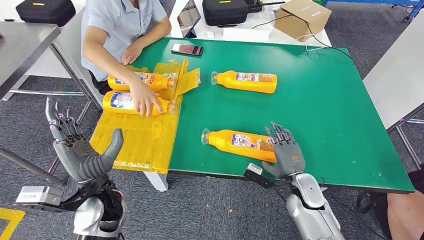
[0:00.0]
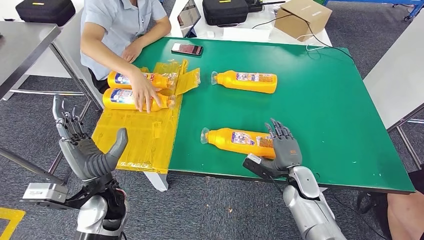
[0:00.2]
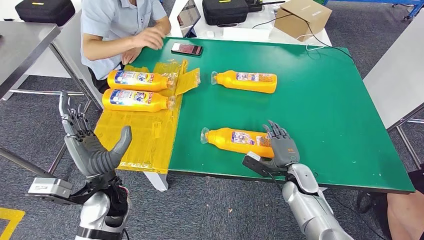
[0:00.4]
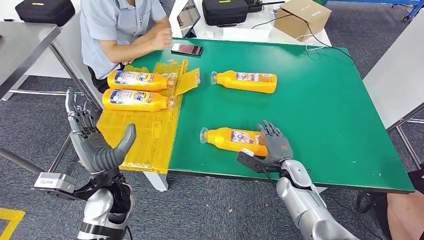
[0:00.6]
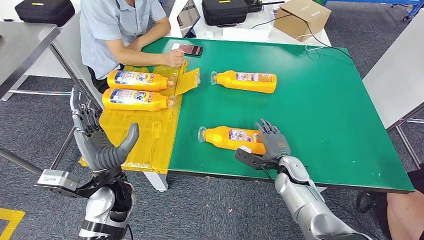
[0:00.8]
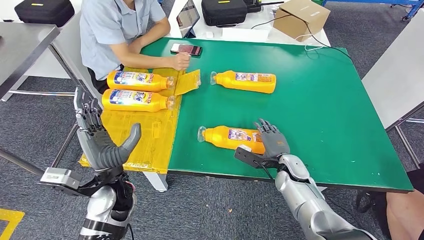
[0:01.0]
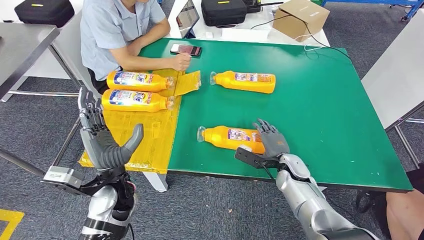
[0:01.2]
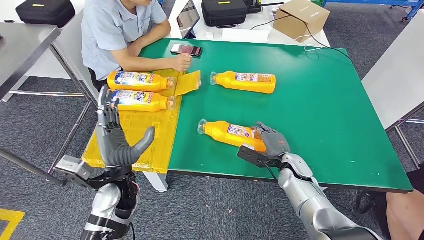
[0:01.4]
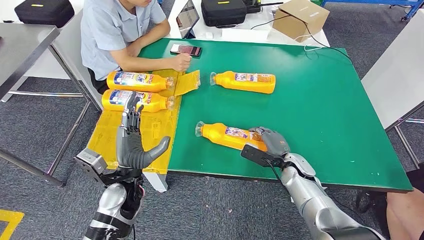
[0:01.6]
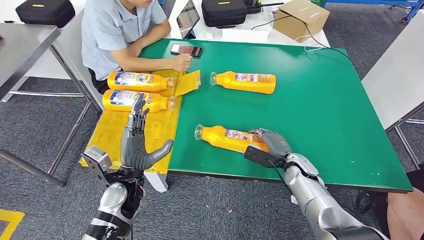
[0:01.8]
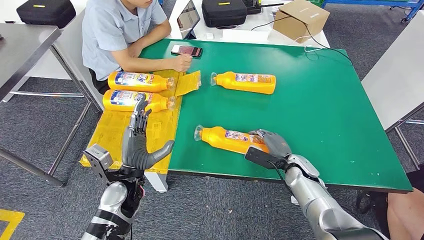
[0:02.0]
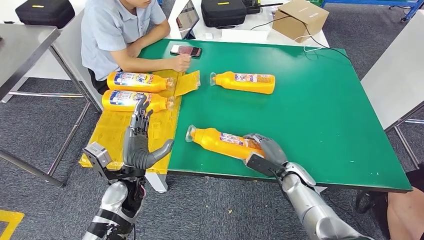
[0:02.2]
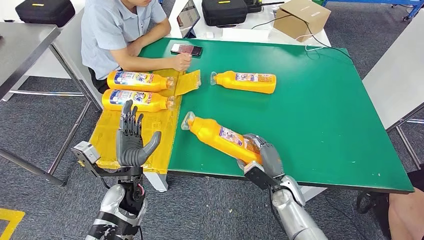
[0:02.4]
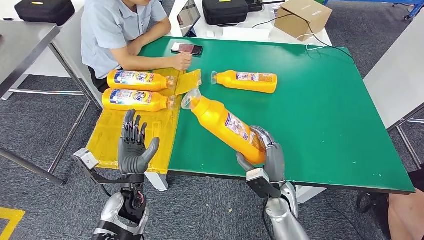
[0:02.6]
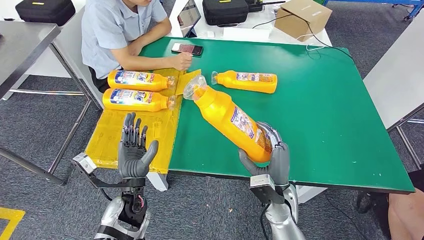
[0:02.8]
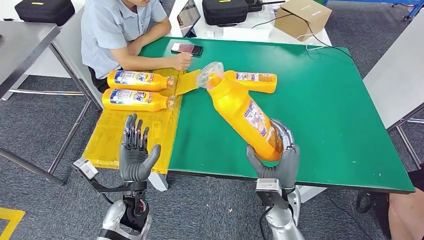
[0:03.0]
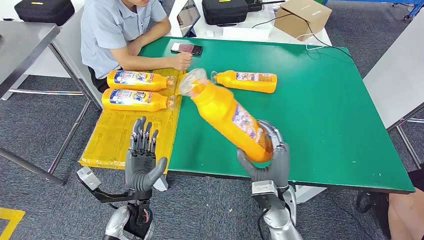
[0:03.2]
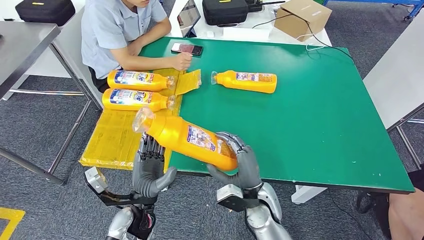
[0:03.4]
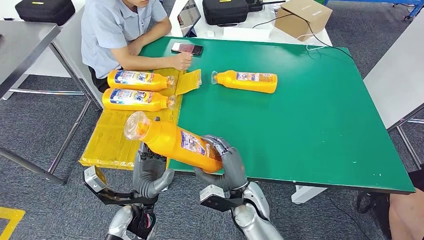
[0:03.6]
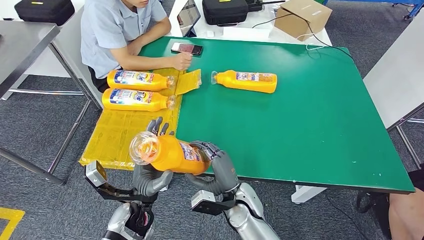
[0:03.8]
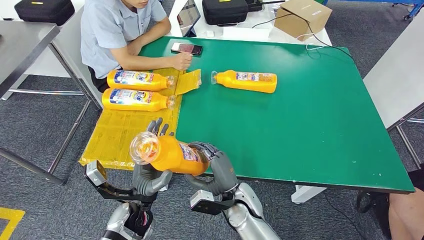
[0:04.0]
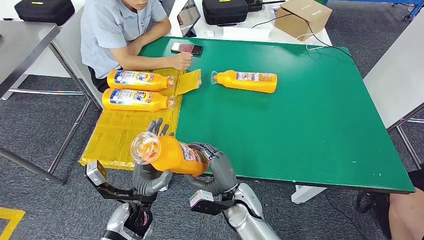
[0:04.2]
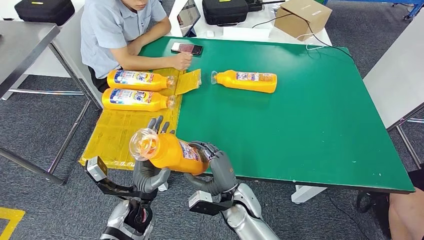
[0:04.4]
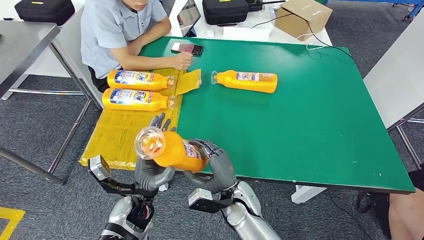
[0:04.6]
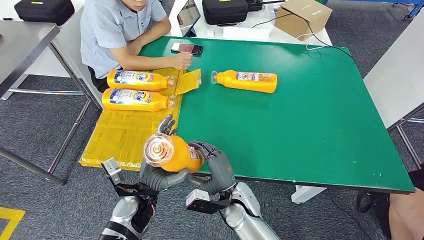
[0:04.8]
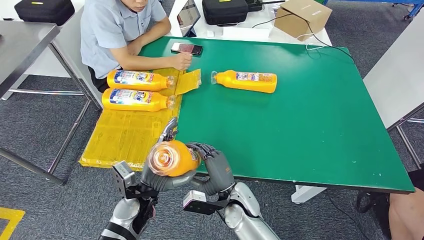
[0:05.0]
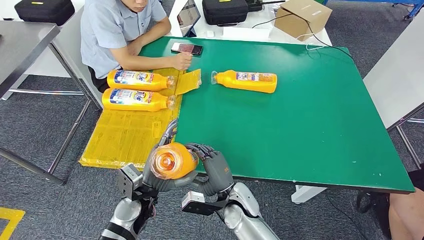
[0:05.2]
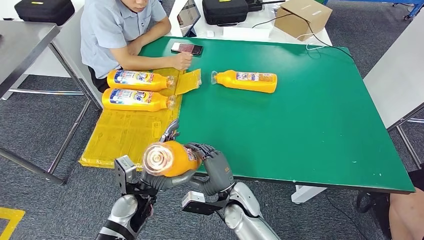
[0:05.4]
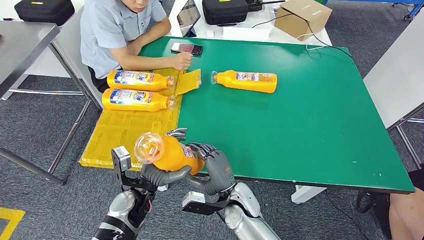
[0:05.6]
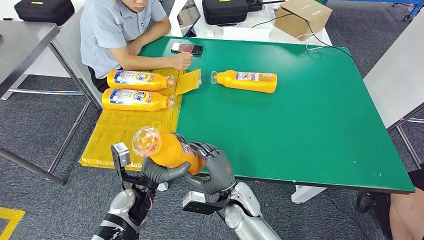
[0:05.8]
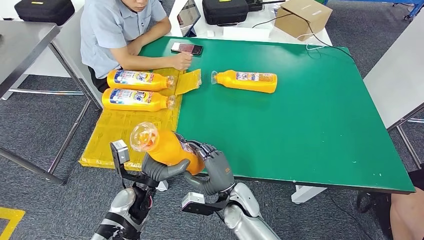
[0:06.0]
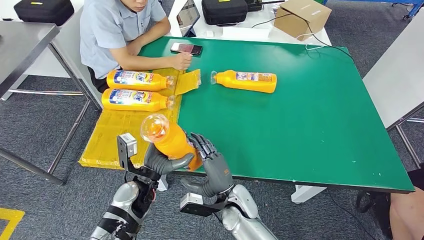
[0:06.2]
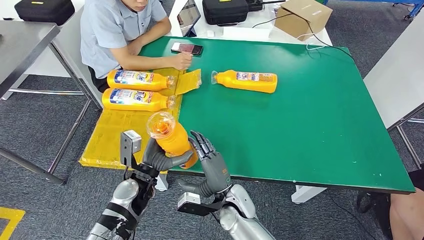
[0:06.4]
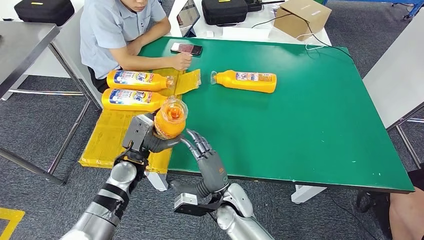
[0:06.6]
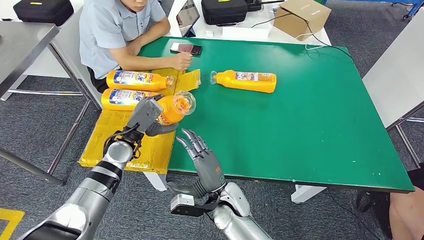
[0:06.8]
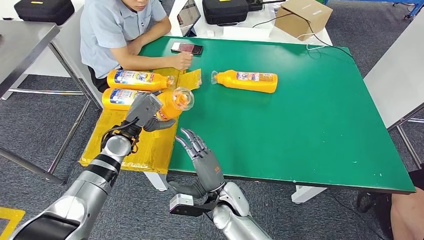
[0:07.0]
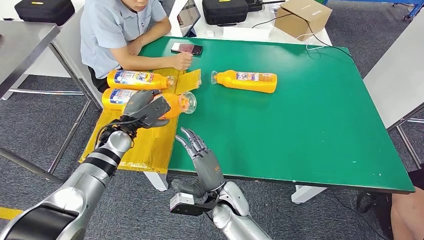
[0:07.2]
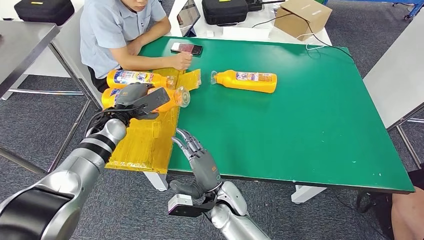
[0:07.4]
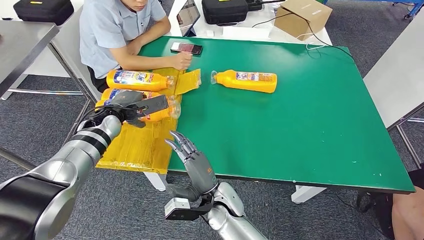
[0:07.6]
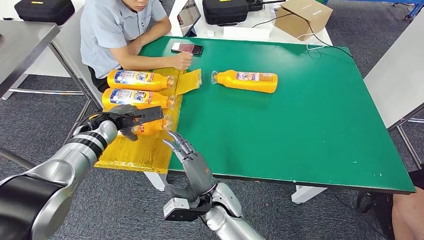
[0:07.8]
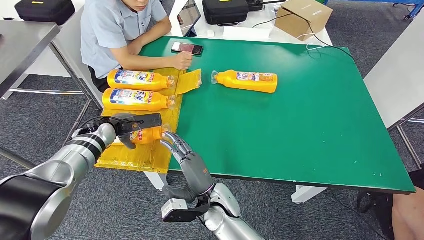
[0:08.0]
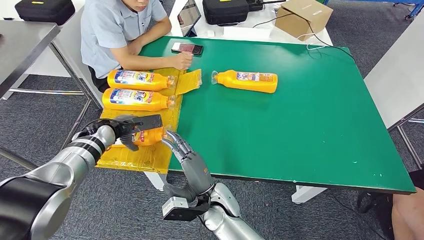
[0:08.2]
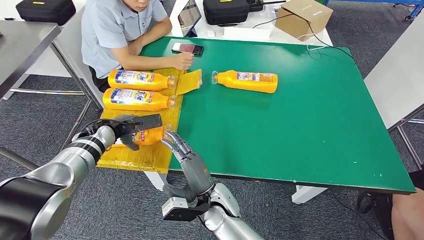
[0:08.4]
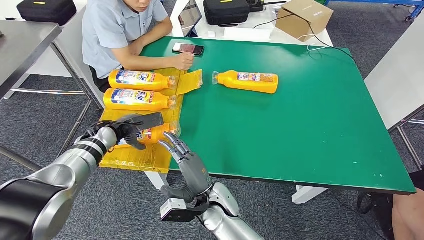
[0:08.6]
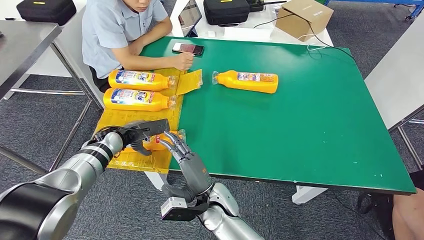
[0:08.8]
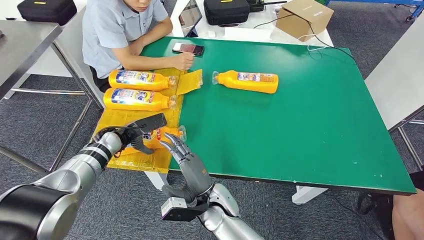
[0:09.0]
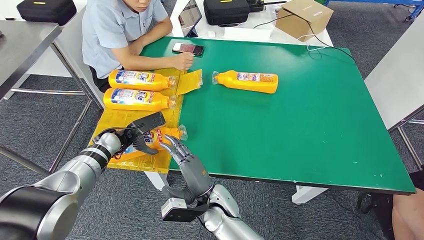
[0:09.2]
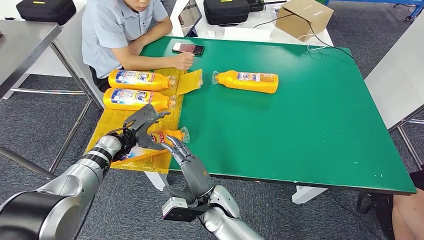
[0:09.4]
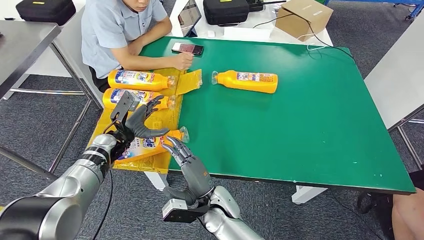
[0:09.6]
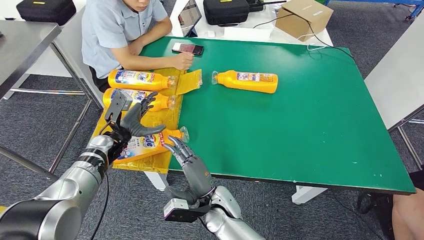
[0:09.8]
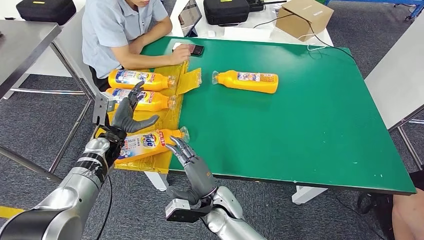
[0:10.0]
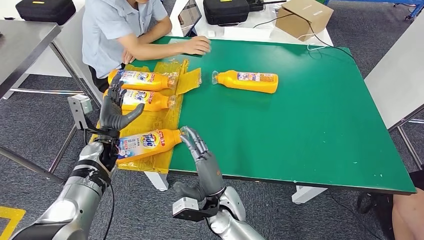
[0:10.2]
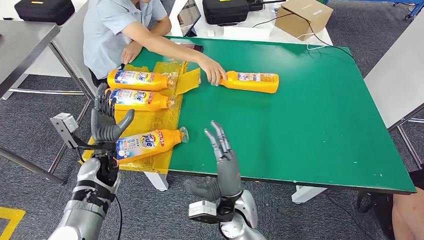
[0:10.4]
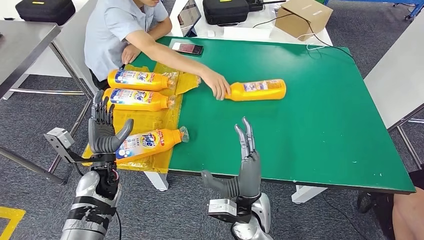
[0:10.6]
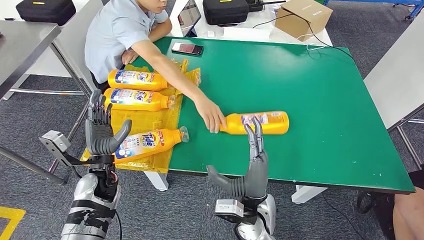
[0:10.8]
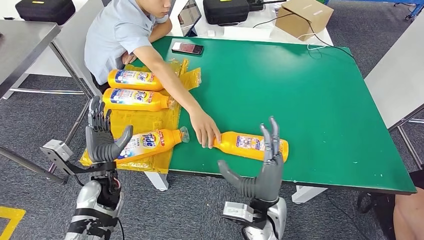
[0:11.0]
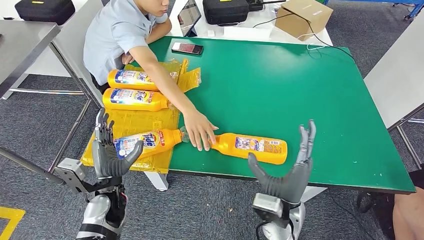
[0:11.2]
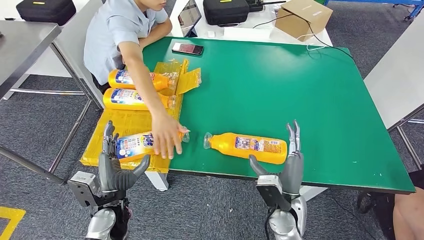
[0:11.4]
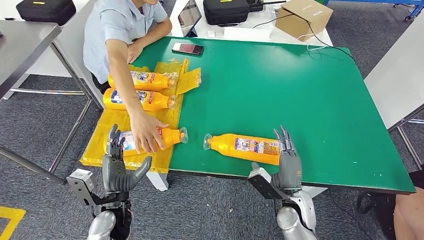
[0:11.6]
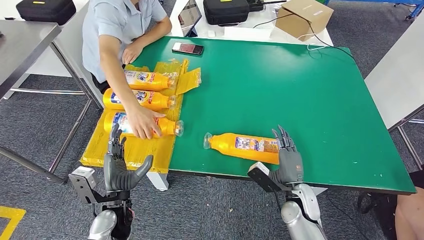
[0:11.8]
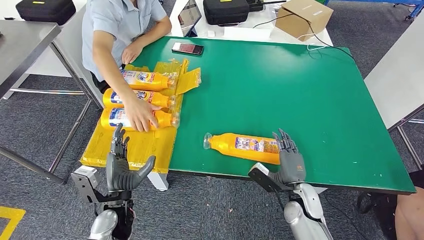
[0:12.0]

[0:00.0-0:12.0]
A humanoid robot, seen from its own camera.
Step, 0:00.0 to 0:03.0: Pick up the fast-moving consumer goods bottle from the table.
Step, 0:03.2 to 0:10.0: Flip the fast-moving consumer goods bottle to the front side.
0:03.0 to 0:04.4: The right hand moves to the left, roughly 10 cm.
0:06.0 to 0:07.6: The left hand shifts approximately 25 cm forward, to the left and upward.
0:07.6 to 0:09.0: The left hand heads downward, covering approximately 5 cm.

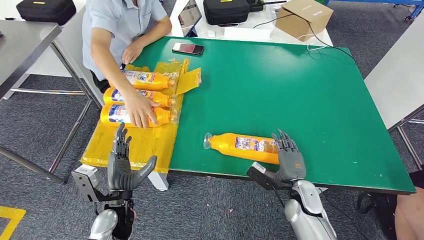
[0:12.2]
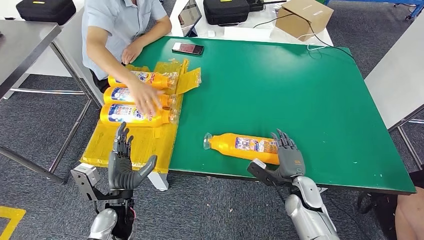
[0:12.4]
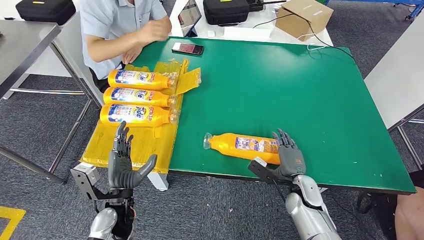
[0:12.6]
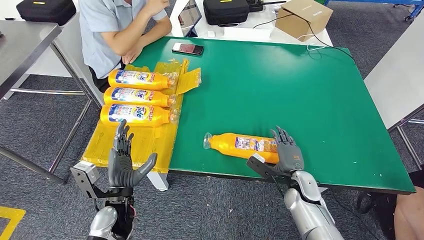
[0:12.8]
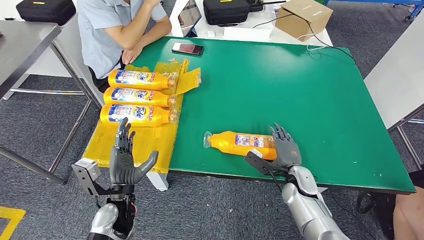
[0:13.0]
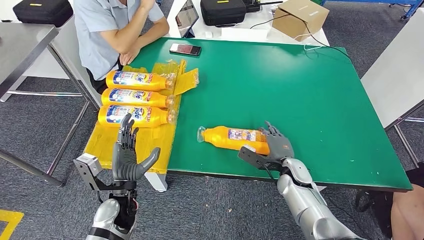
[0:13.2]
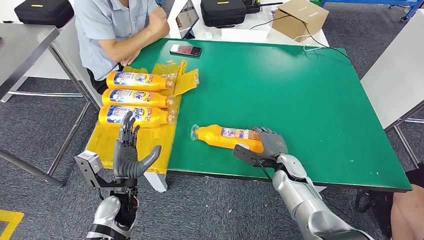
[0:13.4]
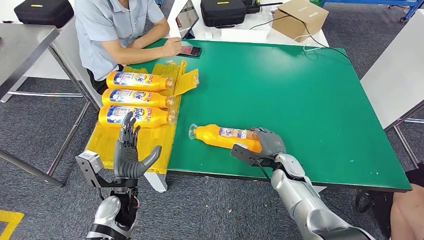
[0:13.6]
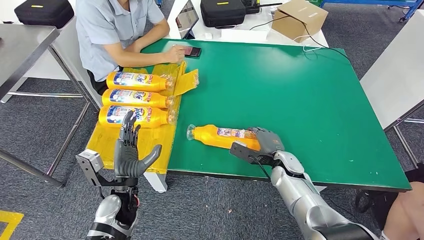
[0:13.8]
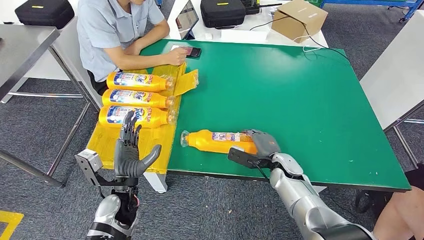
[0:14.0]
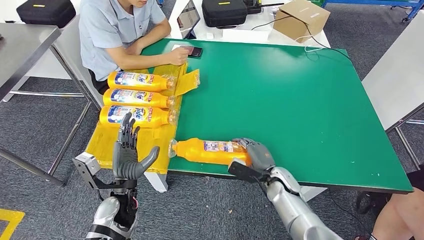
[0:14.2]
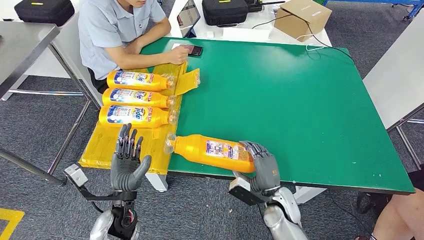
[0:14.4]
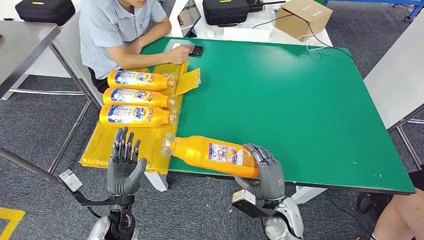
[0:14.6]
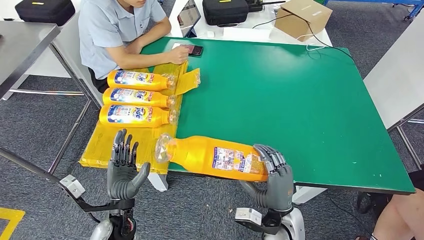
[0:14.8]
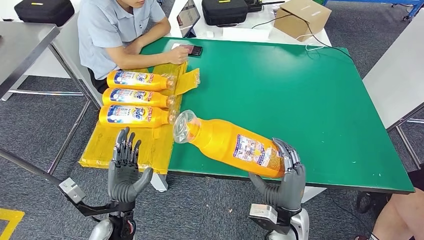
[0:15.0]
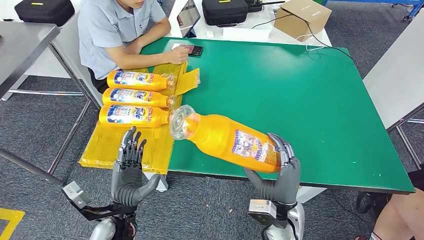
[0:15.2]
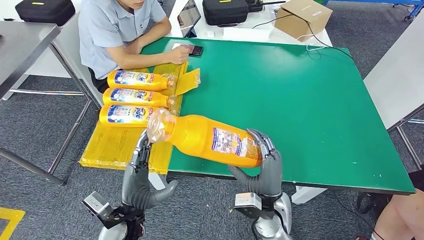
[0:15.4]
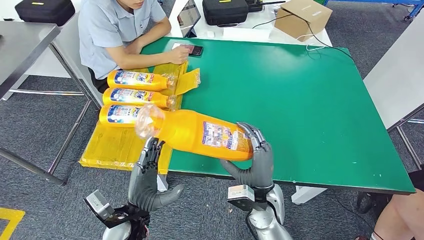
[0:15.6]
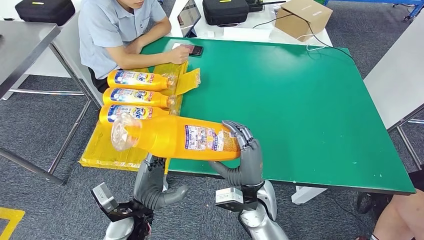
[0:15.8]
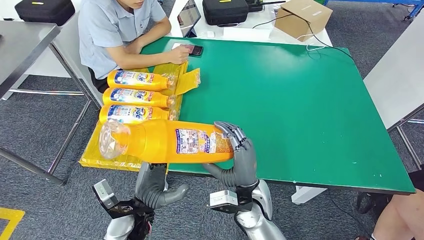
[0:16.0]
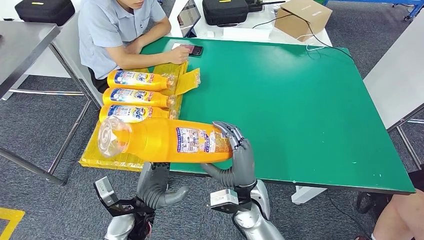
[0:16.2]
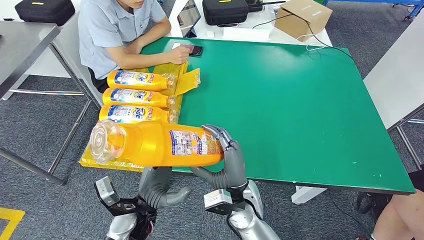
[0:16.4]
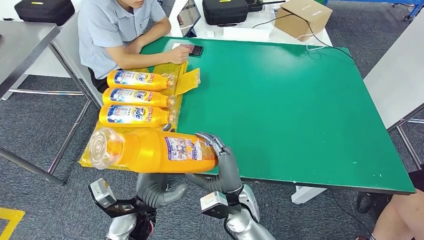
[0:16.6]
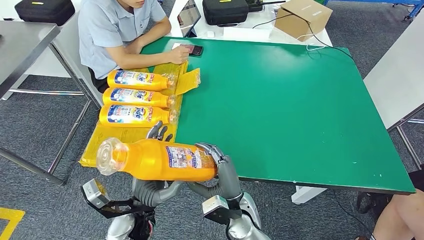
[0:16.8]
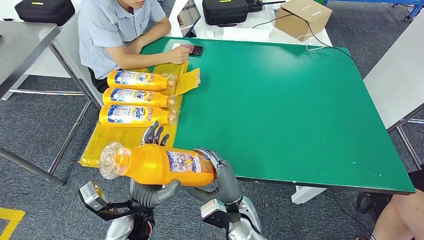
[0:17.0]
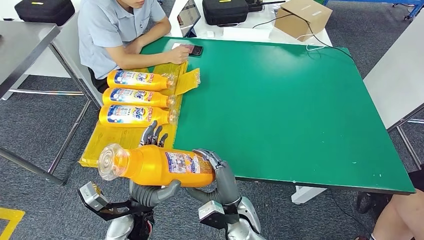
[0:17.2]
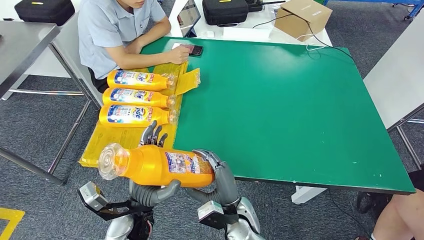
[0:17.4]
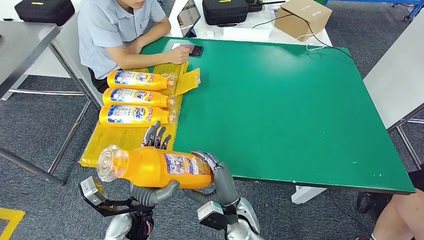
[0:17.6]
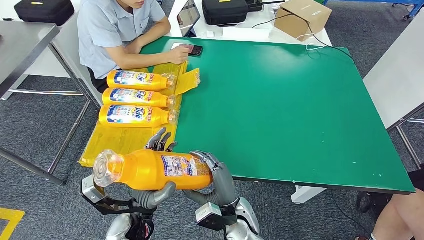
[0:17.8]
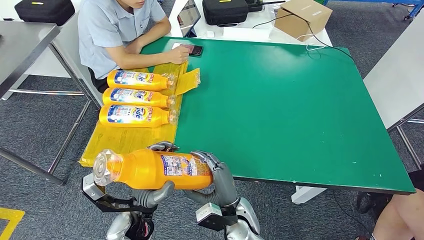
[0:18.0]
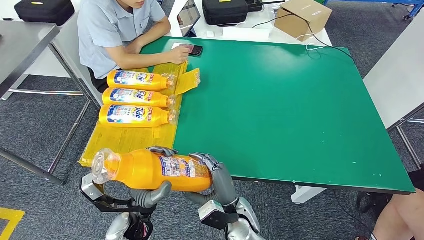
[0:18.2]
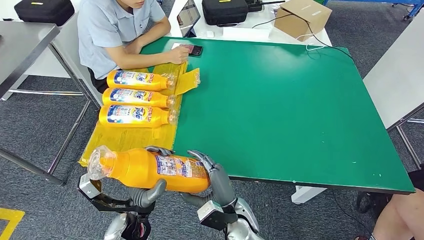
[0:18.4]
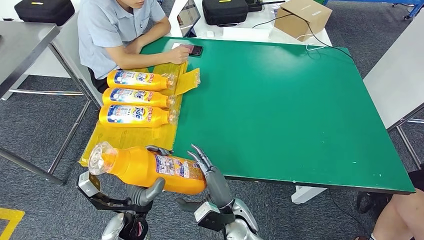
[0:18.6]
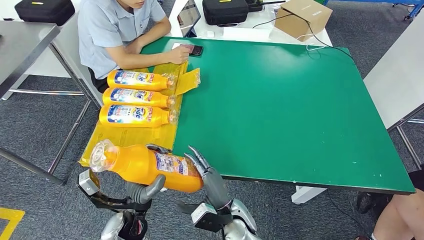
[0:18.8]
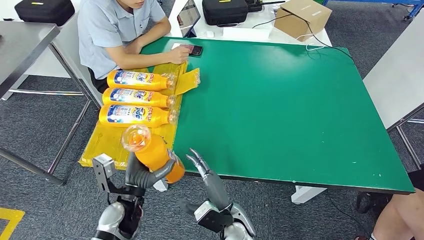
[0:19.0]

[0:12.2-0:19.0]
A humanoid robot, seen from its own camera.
Step, 0:12.2 to 0:15.4: Pick up the fast-moving consumer goods bottle from the table.
0:15.0 to 0:16.2: The right hand is displaced to the left by about 10 cm.
0:16.2 to 0:17.6: The right hand heads downward, covering about 5 cm.
0:17.6 to 0:19.0: The left hand shifts by some 5 cm.
